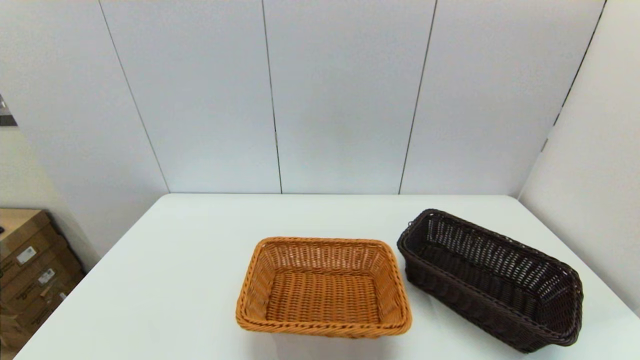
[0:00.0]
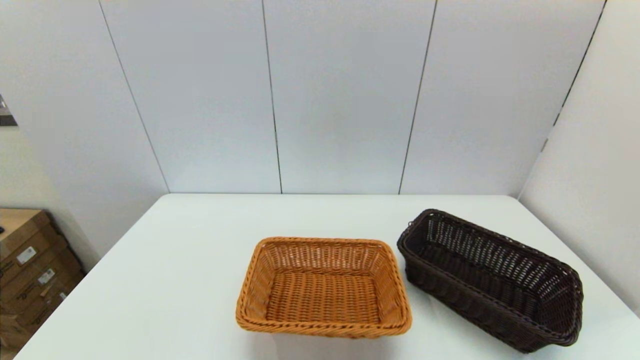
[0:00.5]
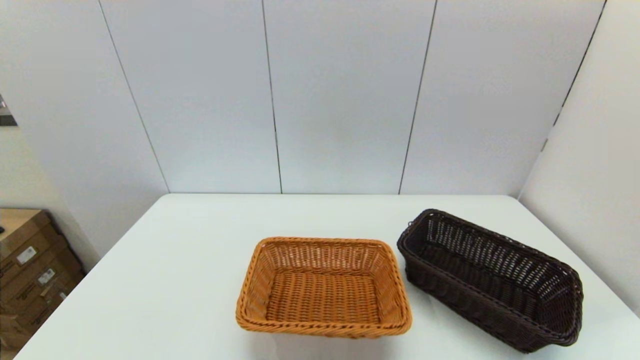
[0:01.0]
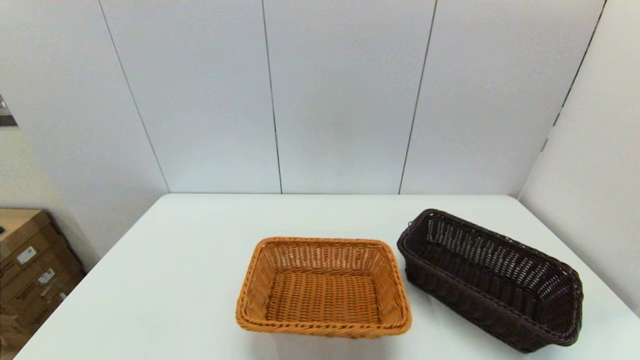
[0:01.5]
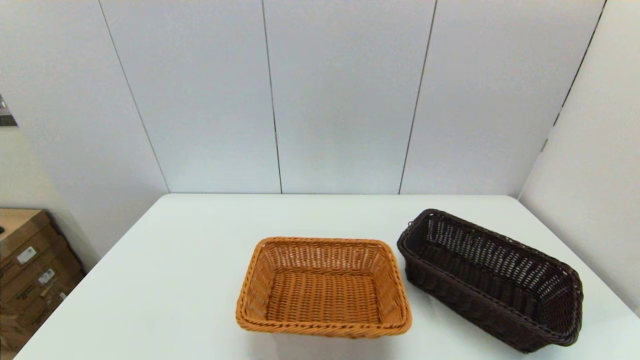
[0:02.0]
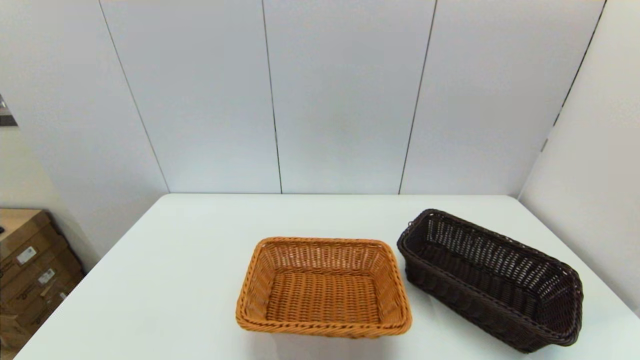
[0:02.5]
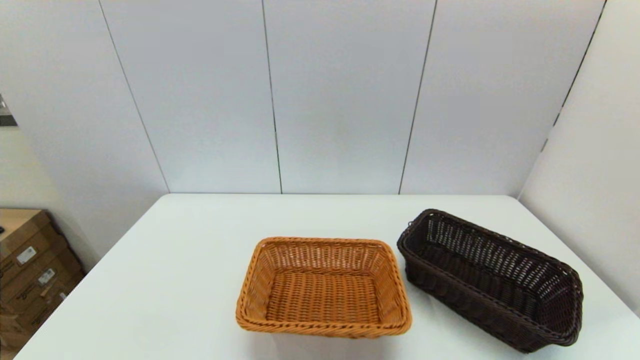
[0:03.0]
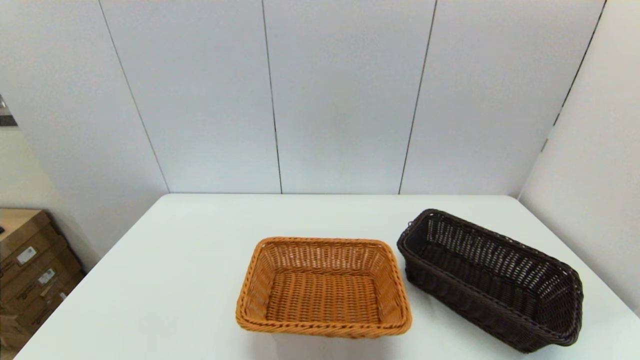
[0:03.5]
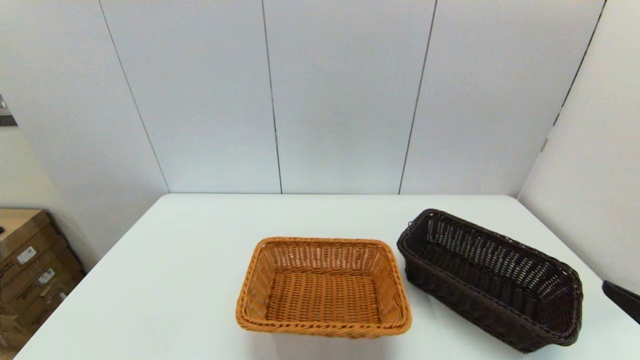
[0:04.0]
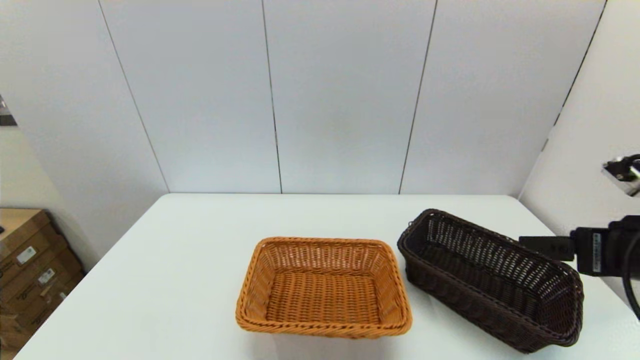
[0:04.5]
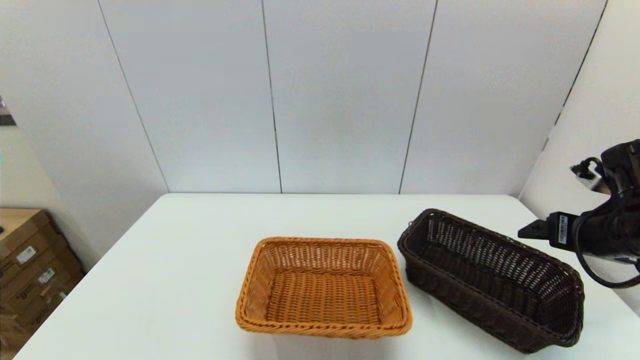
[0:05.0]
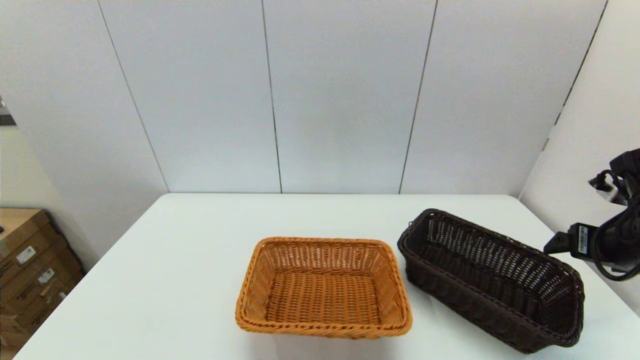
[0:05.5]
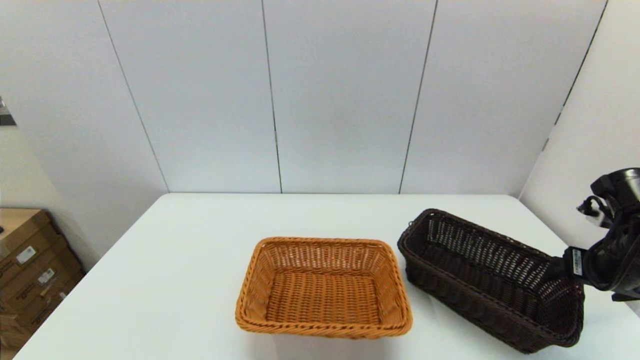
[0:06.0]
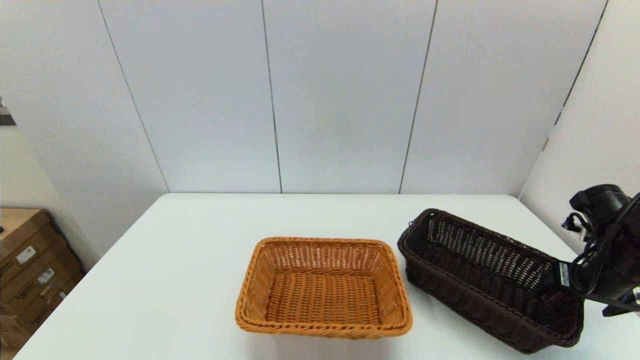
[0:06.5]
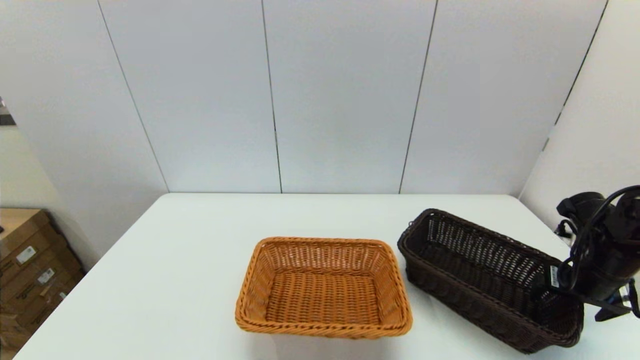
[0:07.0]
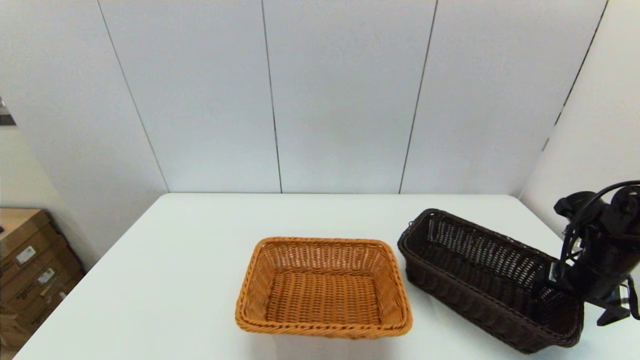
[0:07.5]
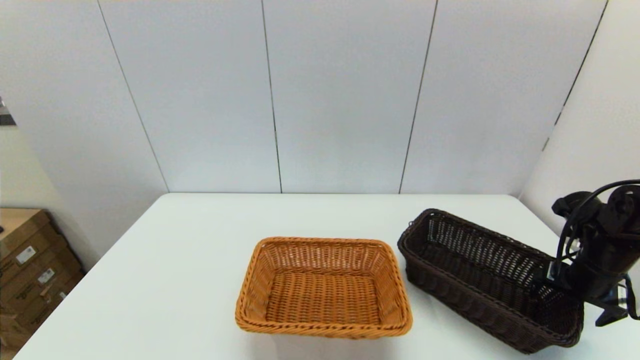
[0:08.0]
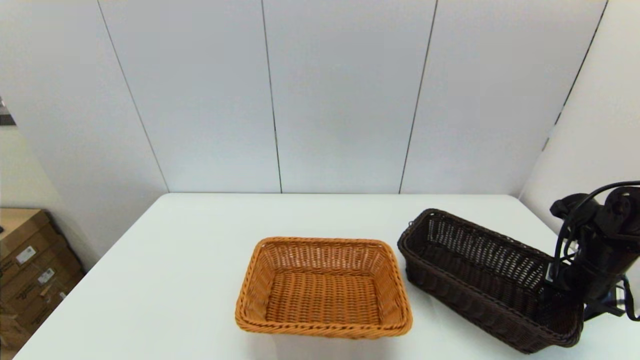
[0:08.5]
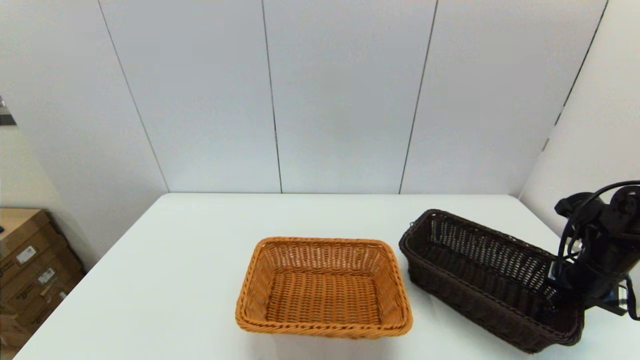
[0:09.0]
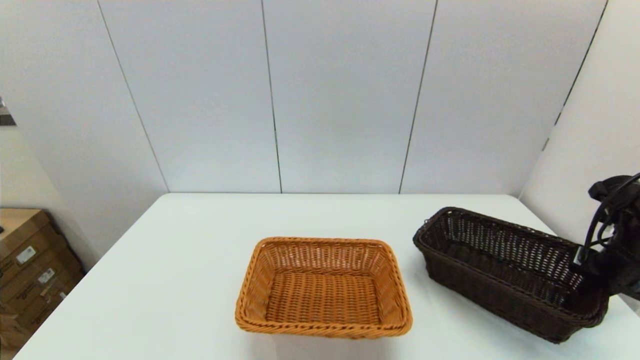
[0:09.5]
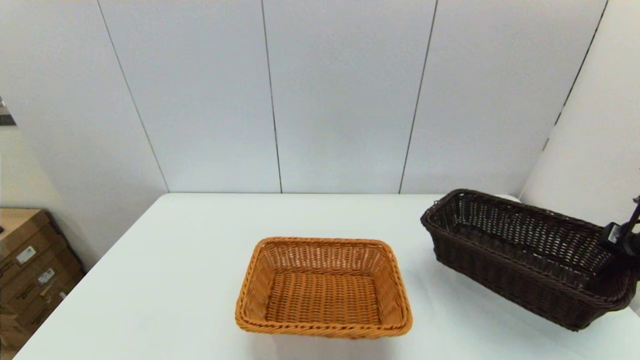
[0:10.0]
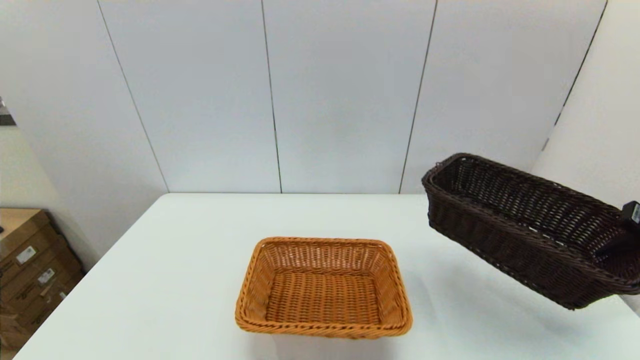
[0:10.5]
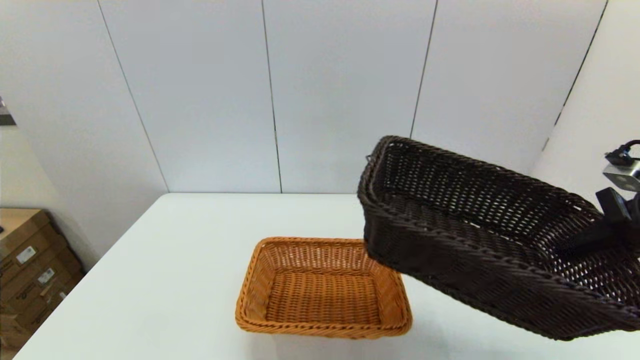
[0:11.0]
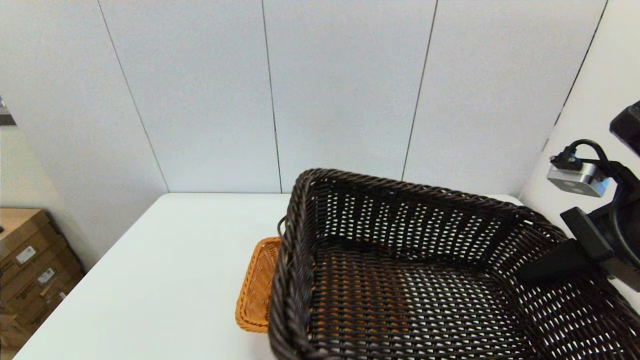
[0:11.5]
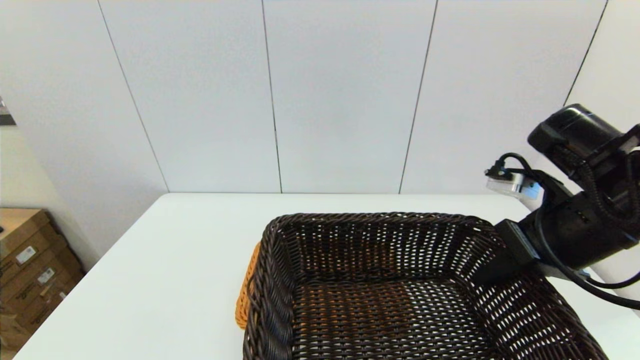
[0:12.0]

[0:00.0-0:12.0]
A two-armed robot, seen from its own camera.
Task of the whole recording: stack a basket on top of another basket.
Step, 0:00.0 to 0:08.5: Grasp the dark basket with the right gripper.
0:04.0 to 0:06.0: The right gripper shifts approximately 20 cm forward.
0:06.0 to 0:08.0: The right gripper is displaced downward by approximately 5 cm.
0:08.0 to 0:10.0: The right gripper moves upward, roughly 10 cm, and closes its fingers.
0:10.0 to 0:12.0: The right gripper shifts about 20 cm to the left.

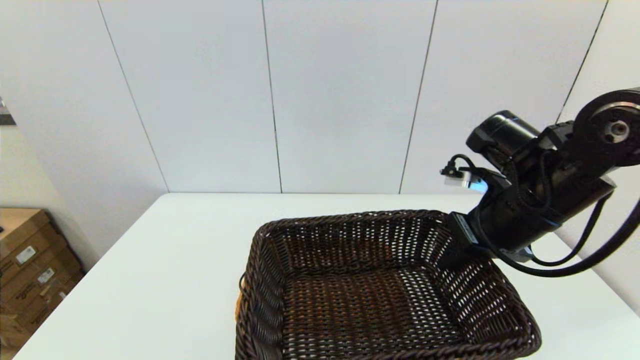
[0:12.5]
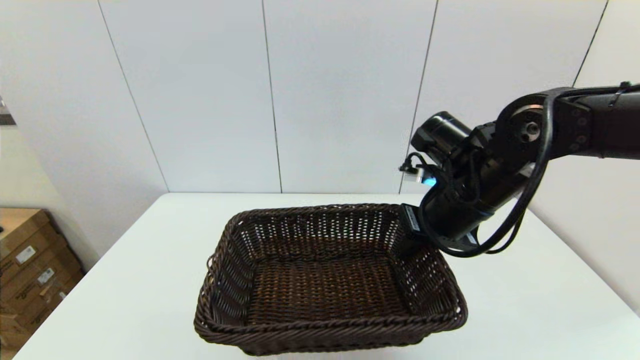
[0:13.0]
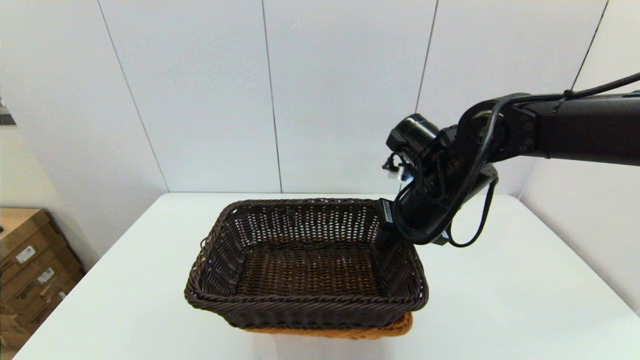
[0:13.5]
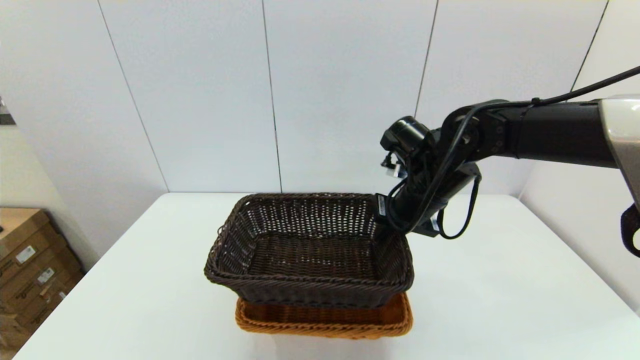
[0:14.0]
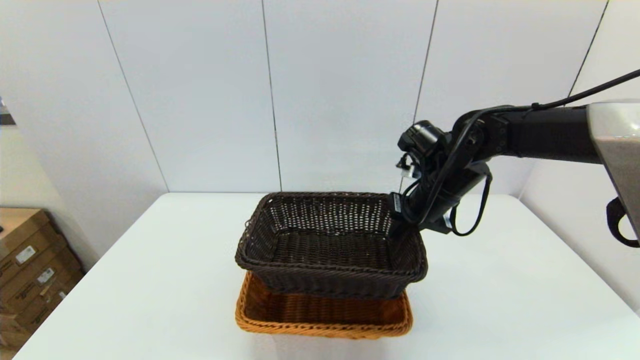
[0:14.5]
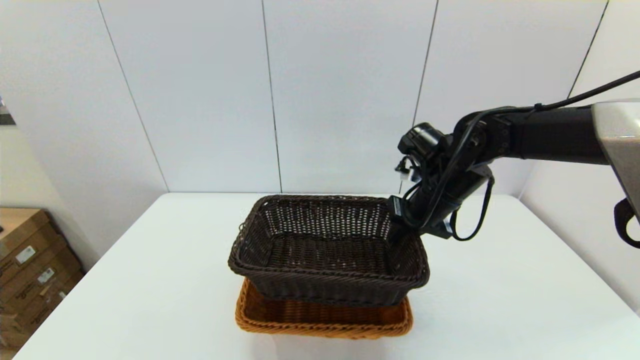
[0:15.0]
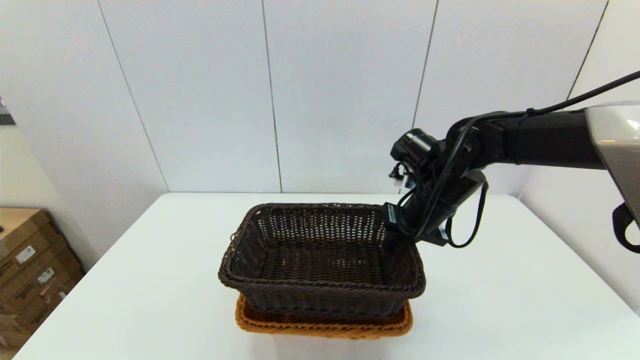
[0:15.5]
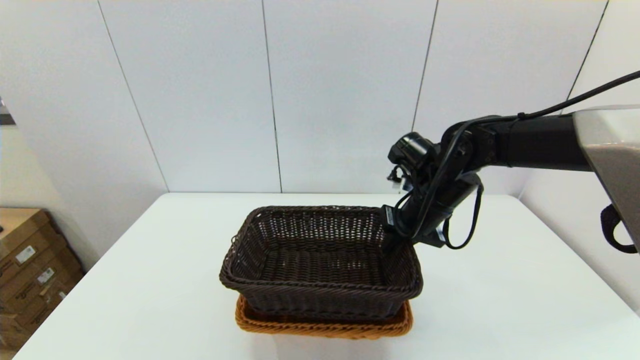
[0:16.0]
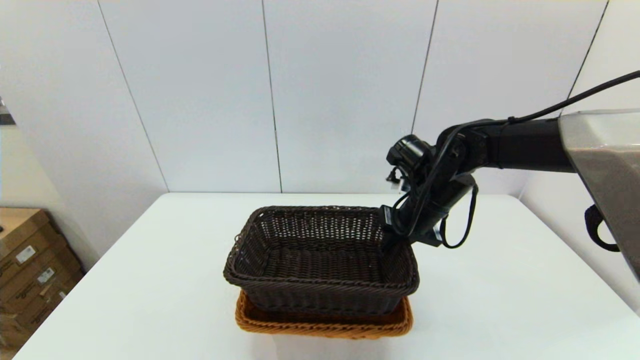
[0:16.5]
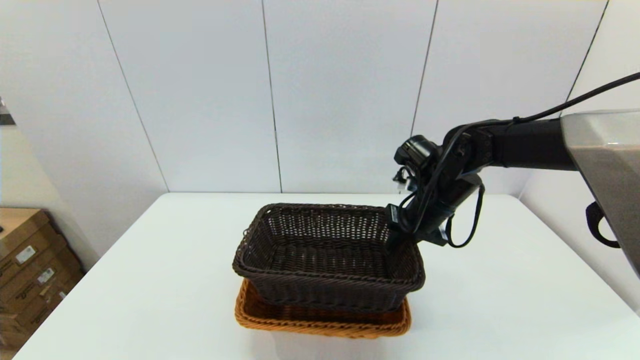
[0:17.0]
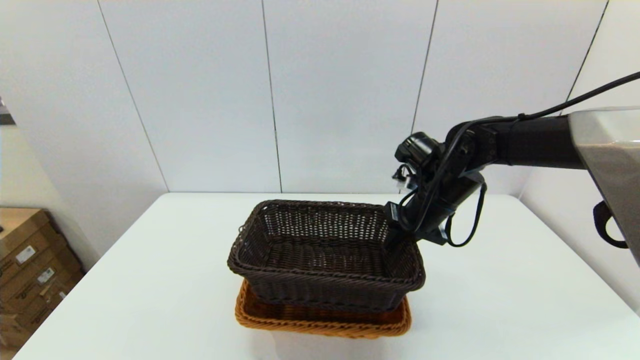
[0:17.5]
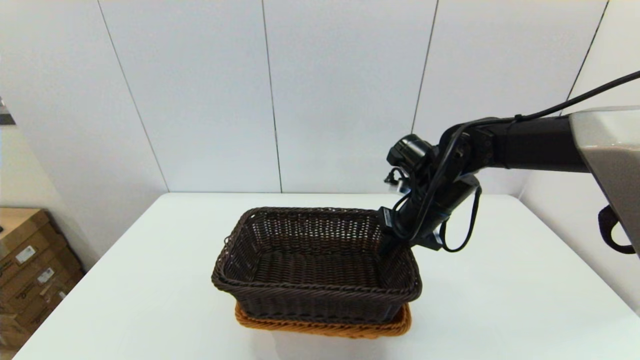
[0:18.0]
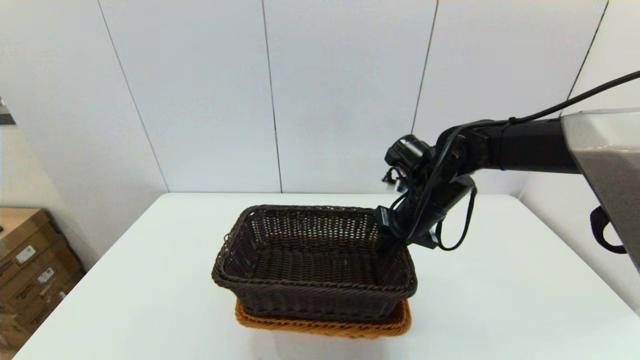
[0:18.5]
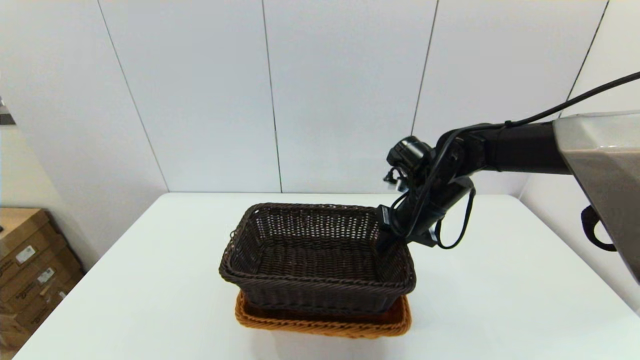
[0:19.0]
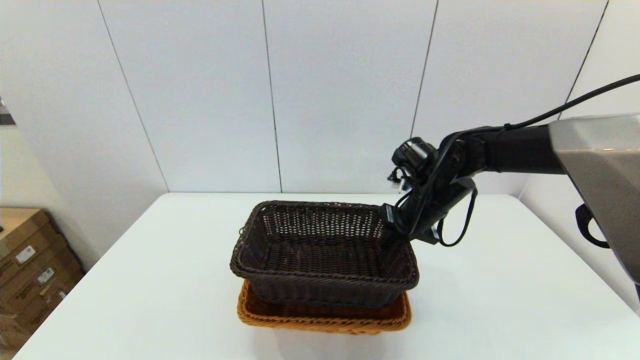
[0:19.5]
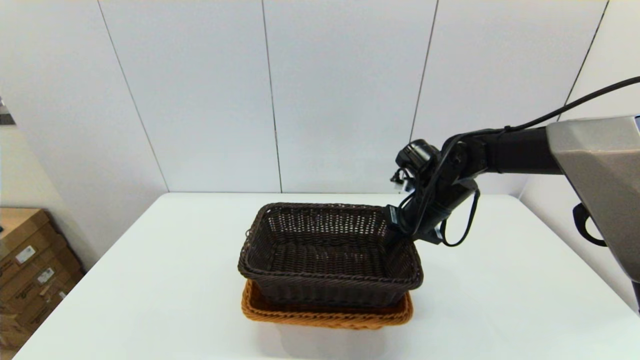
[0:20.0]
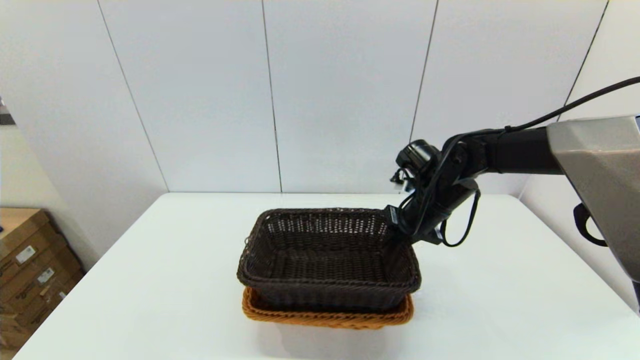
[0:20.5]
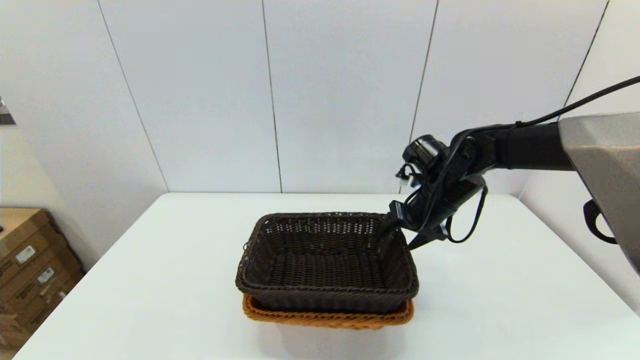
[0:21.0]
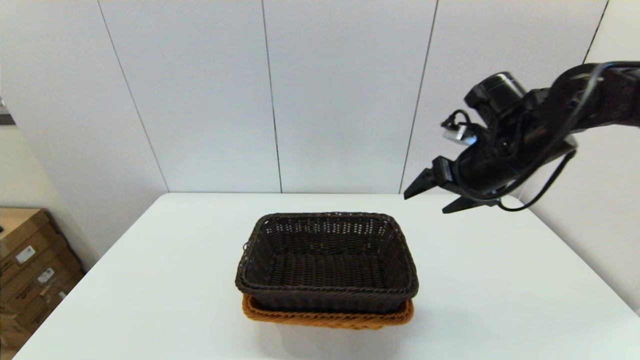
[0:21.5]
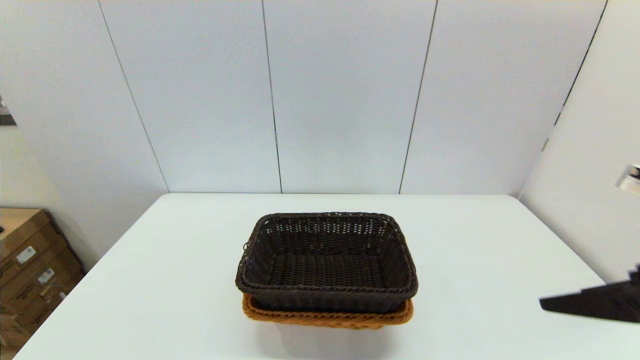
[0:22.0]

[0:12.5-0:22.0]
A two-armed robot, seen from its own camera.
Task of the whole recording: stack a basket on top of another basket.
Step, 0:12.5 to 0:21.0: Place the dark basket into the light color basket with the right gripper.
0:12.5 to 0:14.5: The right gripper travels forward by approximately 10 cm.
0:14.5 to 0:20.0: There are only small adjustments of the grippers.
0:20.0 to 0:22.0: The right gripper is displaced backward, upward and to the right by approximately 30 cm, and opens its fingers.
